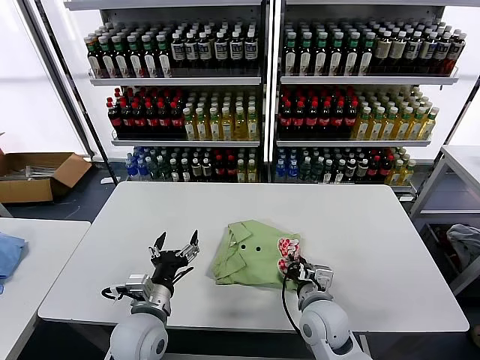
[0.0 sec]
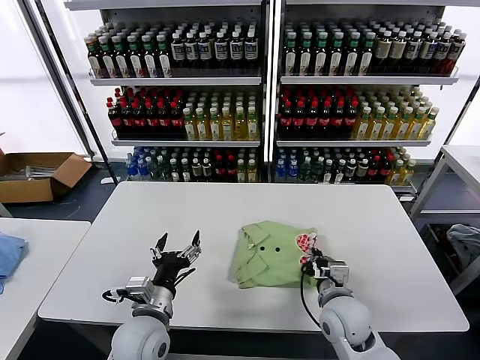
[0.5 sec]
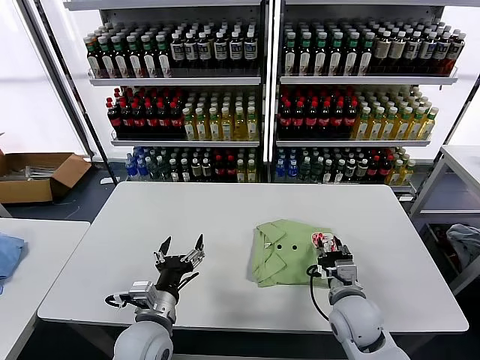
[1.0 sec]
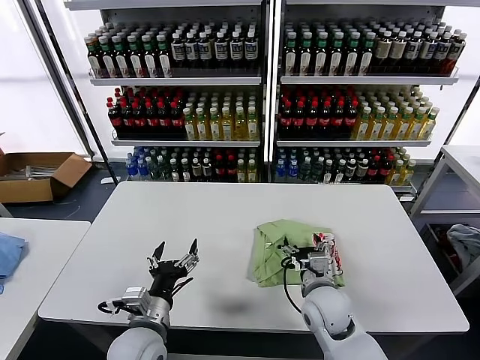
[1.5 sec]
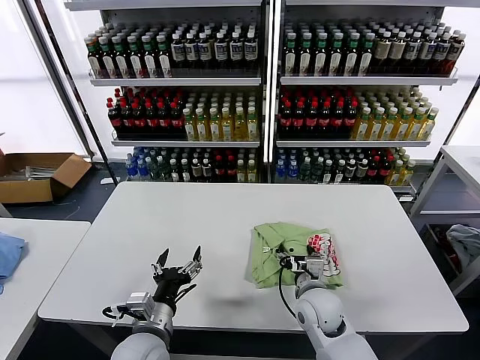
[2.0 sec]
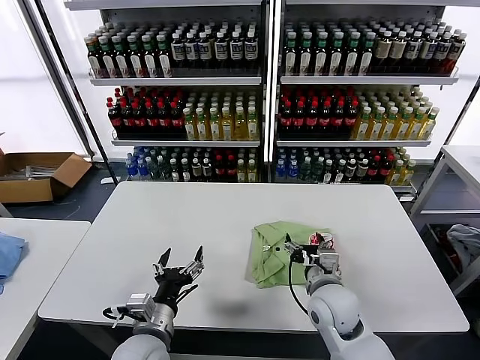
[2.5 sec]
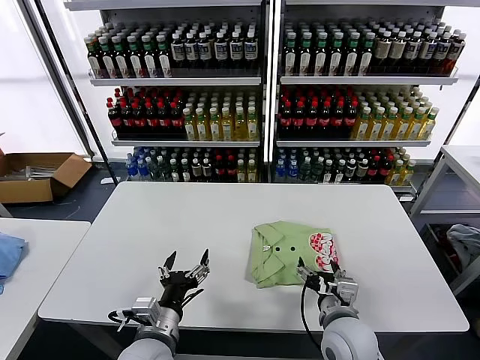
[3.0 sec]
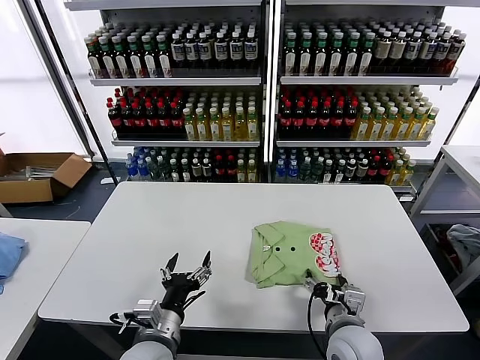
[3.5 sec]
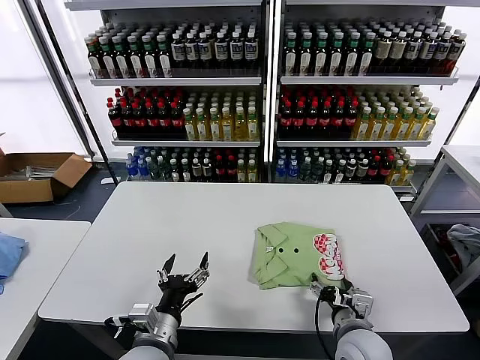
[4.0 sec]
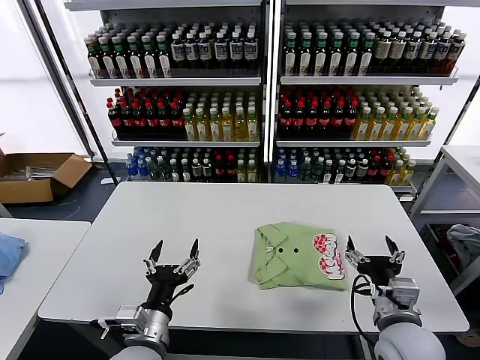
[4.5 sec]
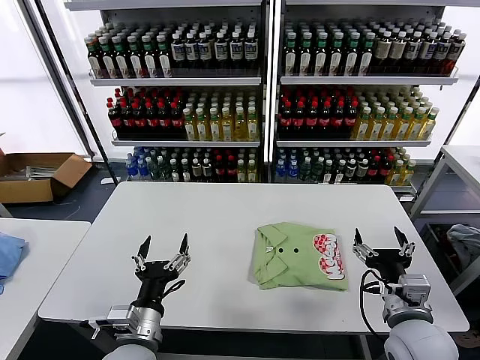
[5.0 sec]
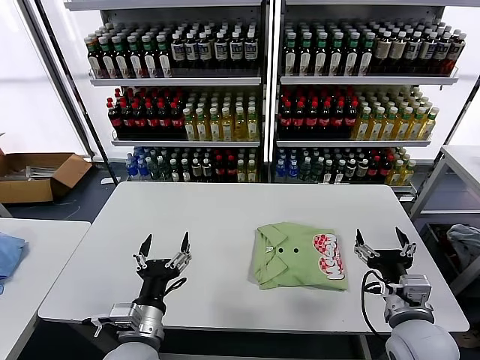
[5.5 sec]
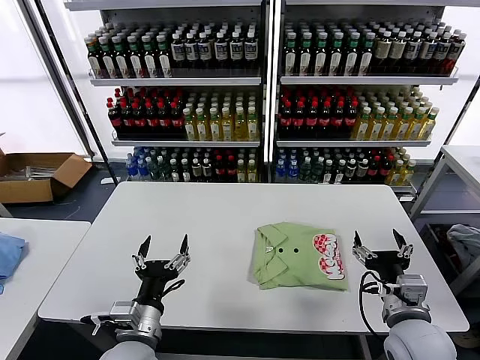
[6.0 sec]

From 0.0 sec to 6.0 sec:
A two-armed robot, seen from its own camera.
Task of the whole recording: fold and organize the clothes.
Step, from 0.0 sec to 4.0 sec: Drag the clothes to the center of the table.
From 0.0 sec to 2.0 sec: The right gripper opens.
From 2.0 sec to 4.0 sec: The right gripper shifts about 10 cm backward and to the right.
From 4.0 sec to 6.0 sec: The right gripper goes some 10 cm upward and to the right.

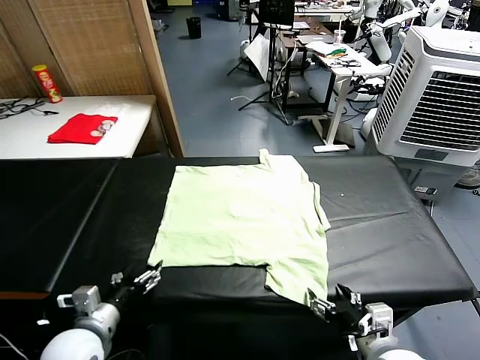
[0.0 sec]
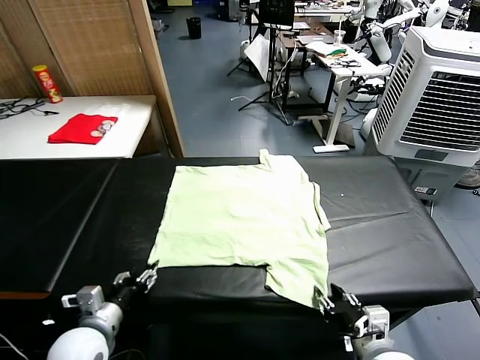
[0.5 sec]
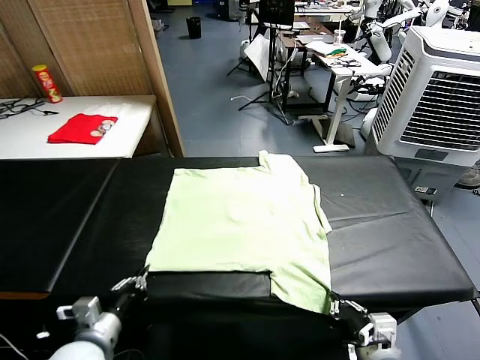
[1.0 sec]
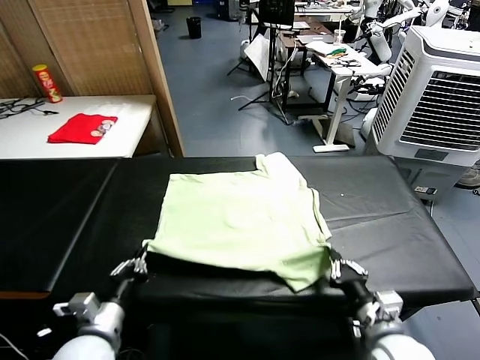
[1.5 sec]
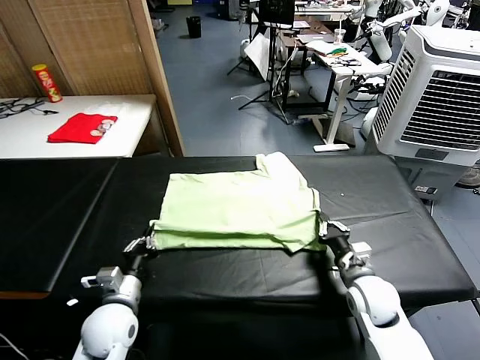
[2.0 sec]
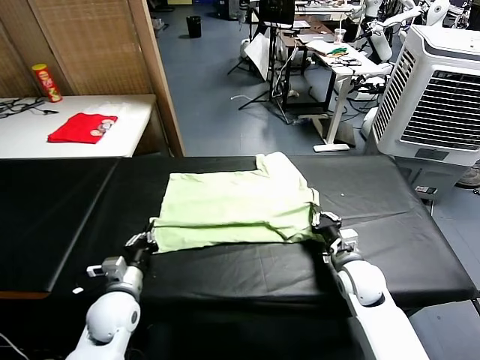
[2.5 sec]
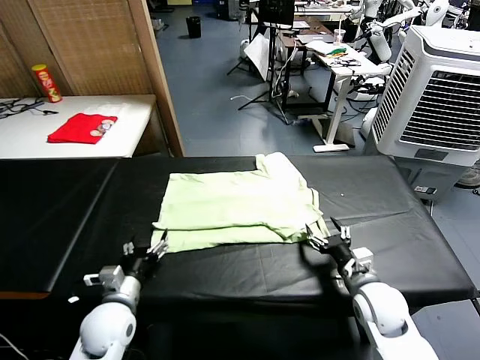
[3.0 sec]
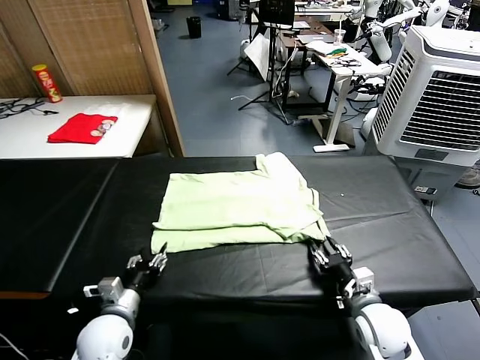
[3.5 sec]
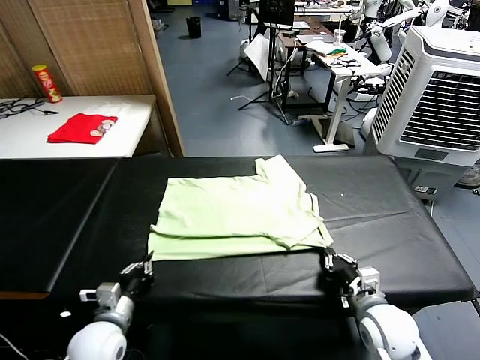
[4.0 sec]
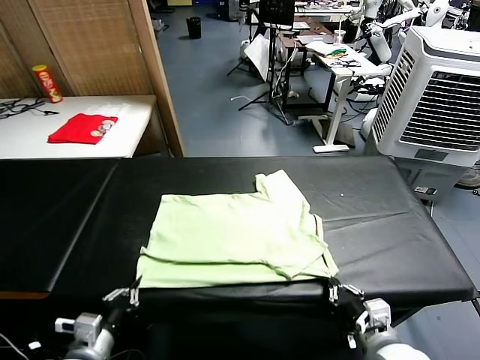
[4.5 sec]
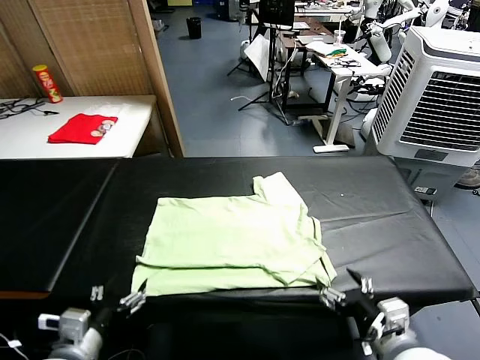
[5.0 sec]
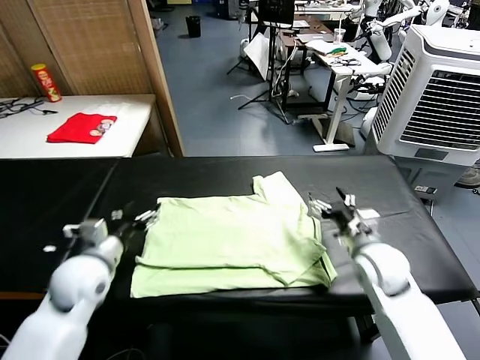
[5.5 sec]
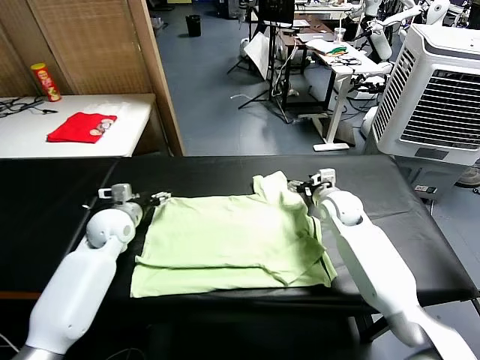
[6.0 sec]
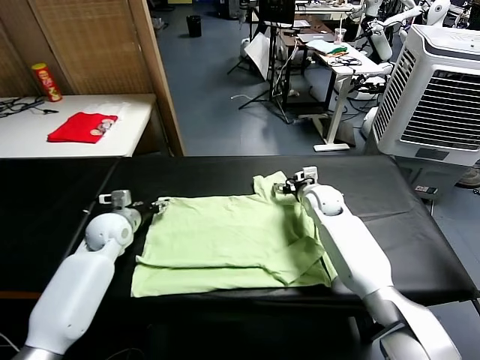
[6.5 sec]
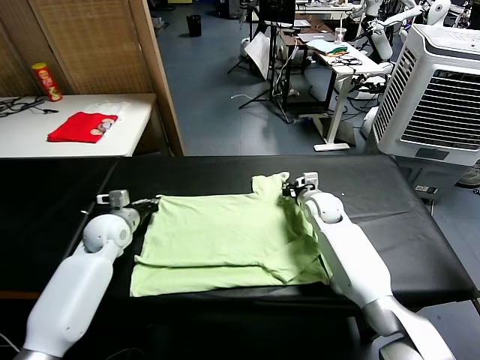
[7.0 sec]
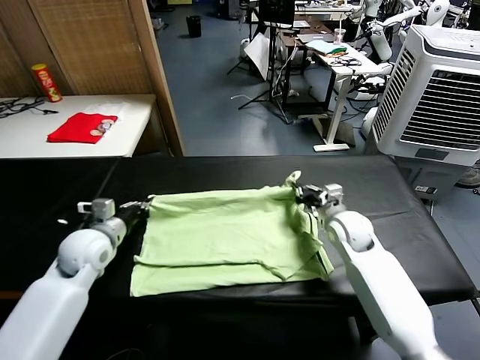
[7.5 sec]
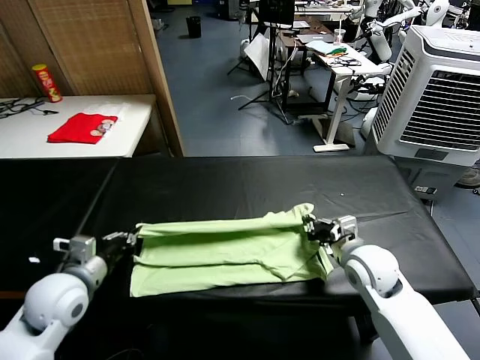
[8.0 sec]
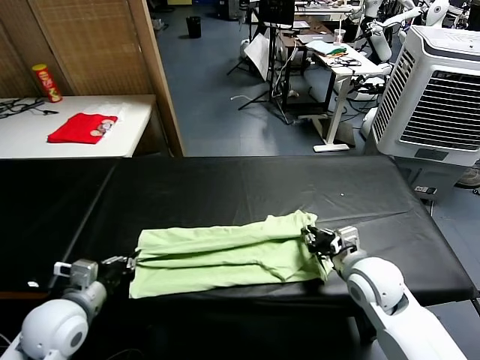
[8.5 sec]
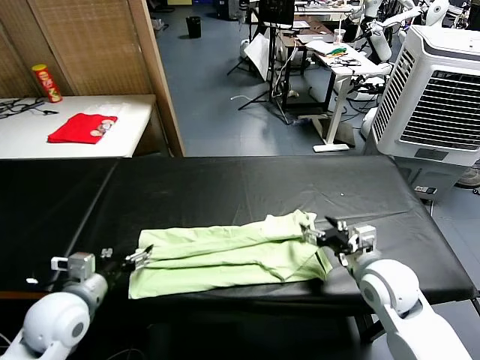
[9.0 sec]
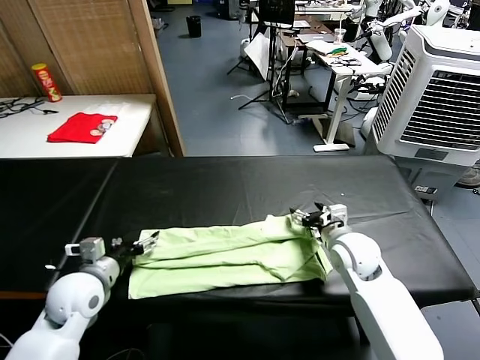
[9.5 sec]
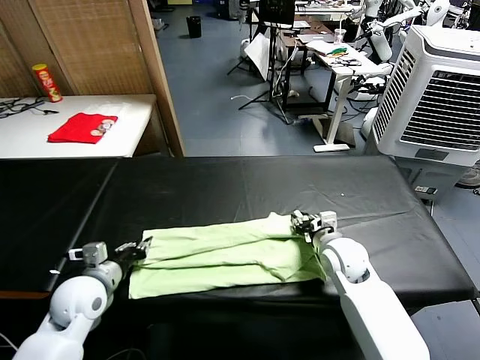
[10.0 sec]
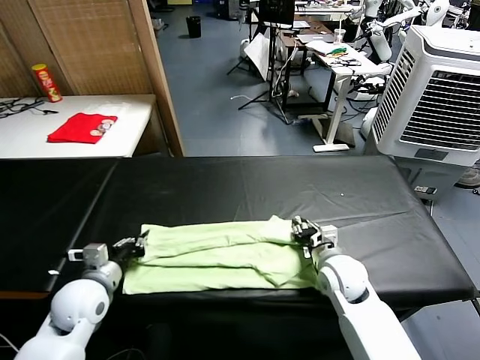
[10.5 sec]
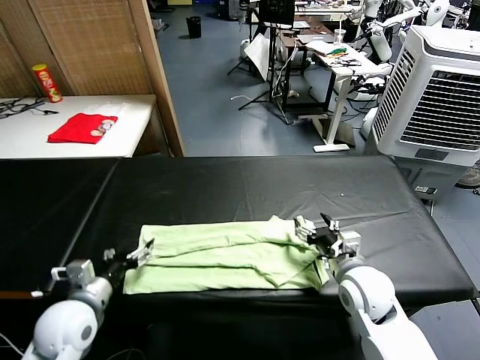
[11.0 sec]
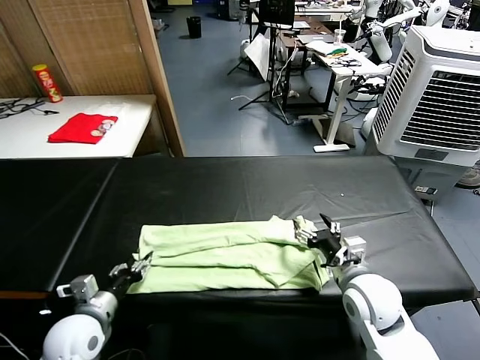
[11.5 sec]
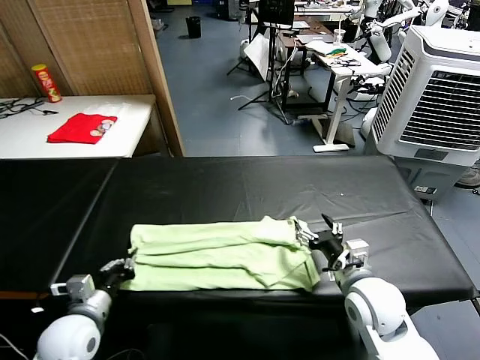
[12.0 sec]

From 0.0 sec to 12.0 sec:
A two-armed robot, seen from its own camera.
Task of the whole recording: fold and organize the clothes.
Step, from 0.0 sec to 0.5 sec: use both grippers simultaneously to clamp the lower edge of the clothing fabric.
Step, from 1.0 sec to 2.5 sec: use both grippers to drag the lower edge of the fabric forward and fold it over the upper edge.
Step, from 3.0 sec to 4.5 sec: Drag the clothes downward with both gripper.
Step, from 5.0 sec to 6.5 sec: use both grippers simultaneously to clamp the upper edge of the clothing fabric.
Step, from 7.0 sec to 8.5 sec: use both grippers to drag the upper edge of the fabric backward and fold it over the lower edge.
Step, from 9.0 sec to 11.5 sec: use the left gripper to clamp the left edge of the fabric.
From 2.0 sec to 4.0 sec: The left gripper moves approximately 5 cm, and opens and closes again. Meanwhile the right gripper shifts some 10 cm backward, and opens and closes again.
From 4.0 sec to 6.0 sec: The grippers both shift forward by roughly 25 cm. The left gripper opens its fingers. Meanwhile the right gripper opens up.
From 6.0 sec to 8.0 sec: The grippers both shift backward by roughly 20 cm. The right gripper closes up, while the left gripper closes its fingers.
From 8.0 sec to 10.0 sec: The right gripper ends up some 10 cm from where it was, and opens, then closes again, while the left gripper travels downward by roughly 5 cm, and opens and closes again.
From 10.0 sec to 12.0 sec: The left gripper goes approximately 5 cm backward, and opens, then closes once more. The right gripper goes approximately 10 cm backward, and opens its fingers.

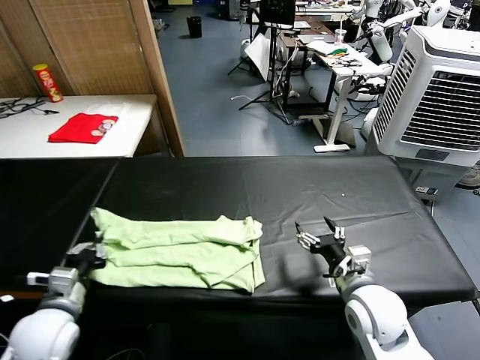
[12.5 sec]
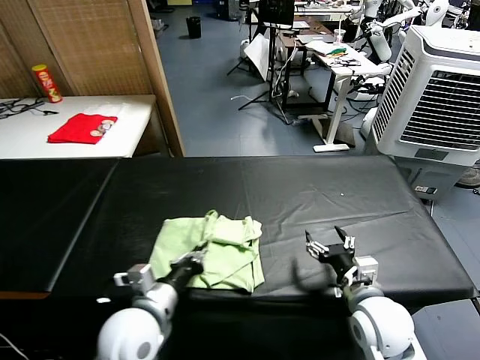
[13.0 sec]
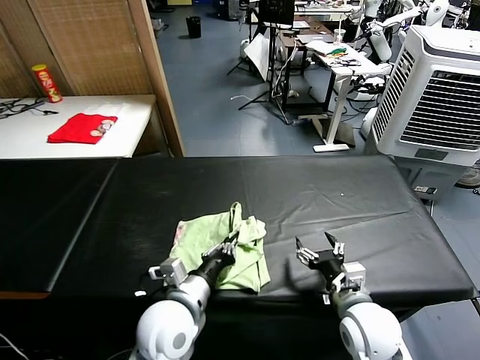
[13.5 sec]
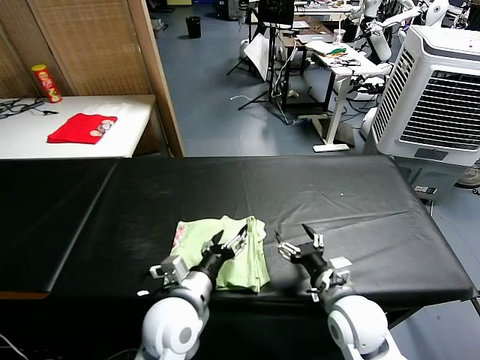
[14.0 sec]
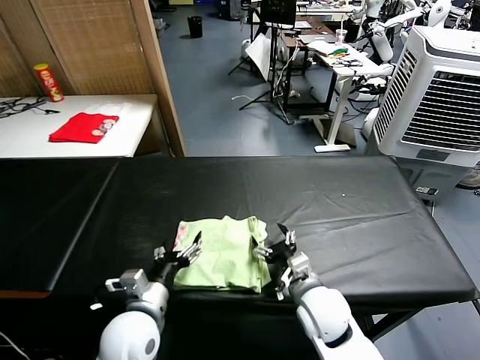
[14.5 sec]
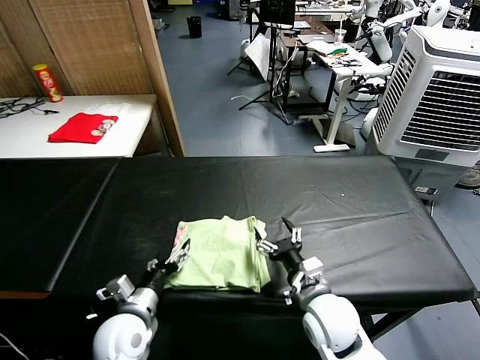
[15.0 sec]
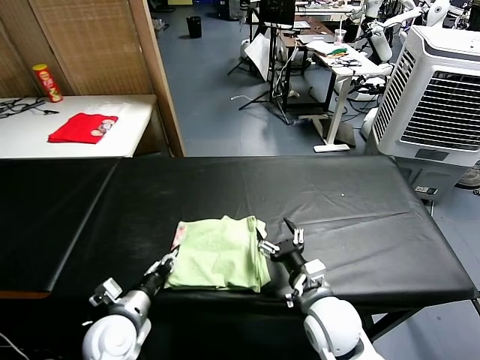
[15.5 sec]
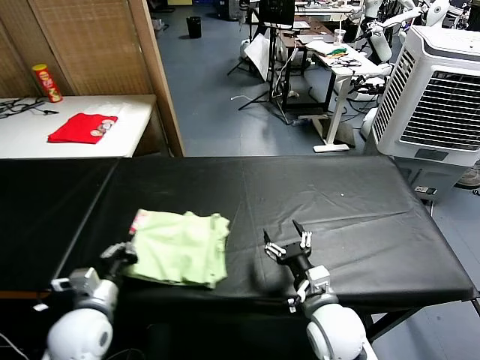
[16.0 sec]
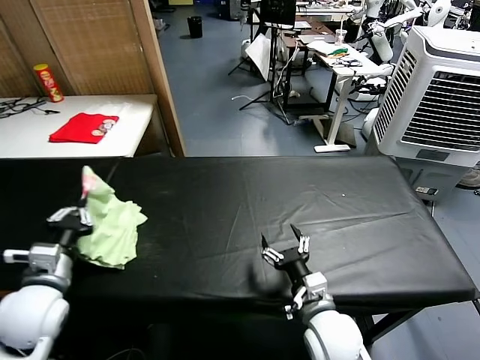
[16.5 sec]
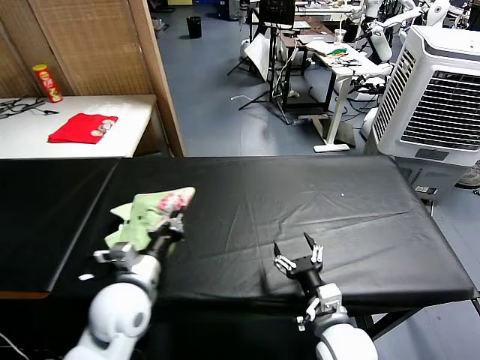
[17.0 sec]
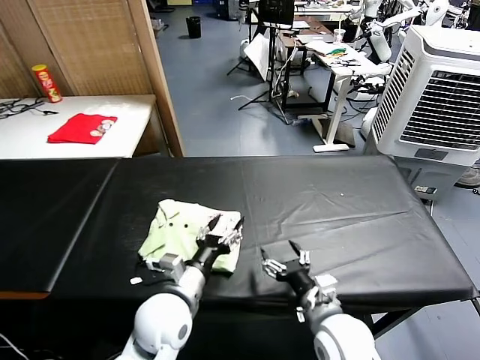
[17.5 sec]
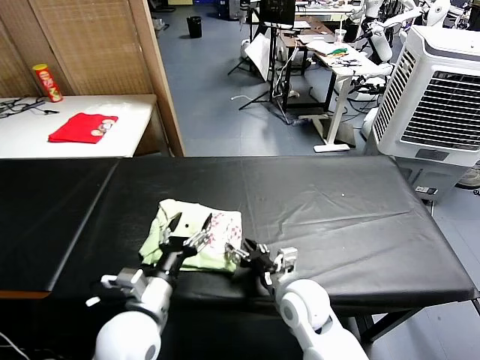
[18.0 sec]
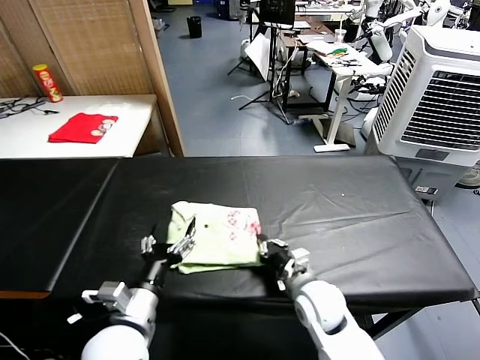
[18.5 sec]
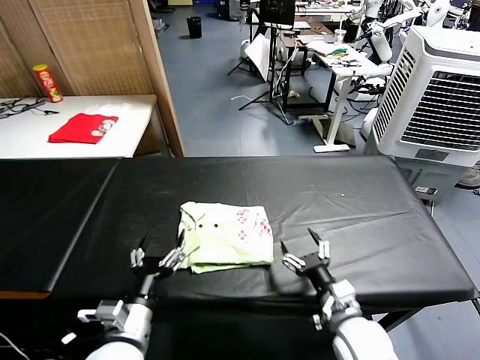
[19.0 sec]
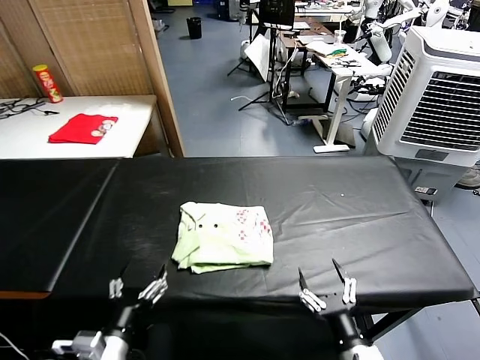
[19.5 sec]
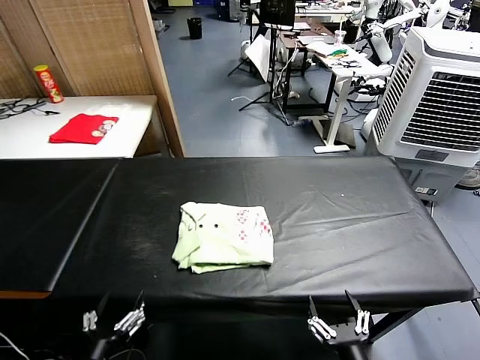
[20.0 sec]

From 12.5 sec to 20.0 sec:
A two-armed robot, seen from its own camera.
Task of the whole recording: fold and organize the clothes.
Step, from 12.5 sec to 14.0 sec: use the left gripper to drag the left edge of the fabric to the left and folds it over the right edge.
Step, from 14.5 sec to 17.0 sec: Flip the folded clothes over with left gripper.
Step, from 17.5 sec to 18.5 sec: Drag the clothes to the center of the table.
From 12.5 sec to 14.5 sec: The left gripper travels to the right by some 15 cm, and opens its fingers. The right gripper moves to the left, approximately 10 cm.
From 14.5 sec to 16.5 sec: The left gripper travels to the left and upward by roughly 15 cm, and closes.
From 16.5 sec to 18.0 sec: The right gripper travels forward by some 5 cm, while the left gripper heads to the right, covering roughly 15 cm, and opens up.
From 18.0 sec to 20.0 sec: The left gripper goes some 15 cm backward and to the left. Meanwhile the right gripper heads backward, covering about 25 cm, and closes and opens again.
